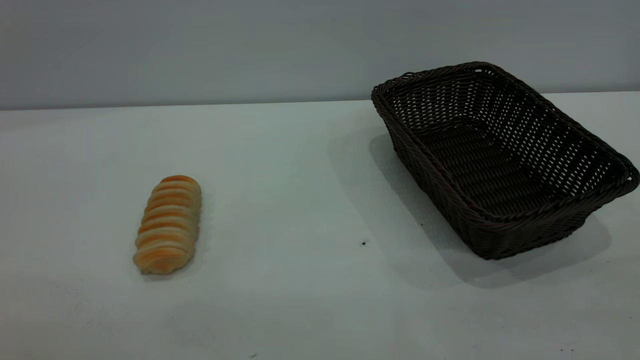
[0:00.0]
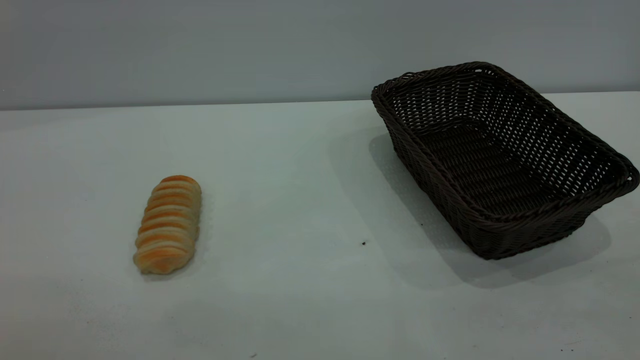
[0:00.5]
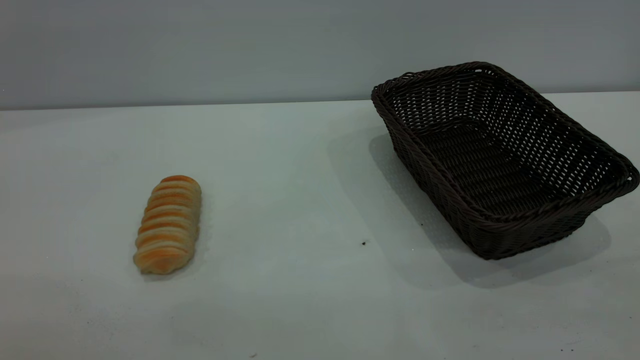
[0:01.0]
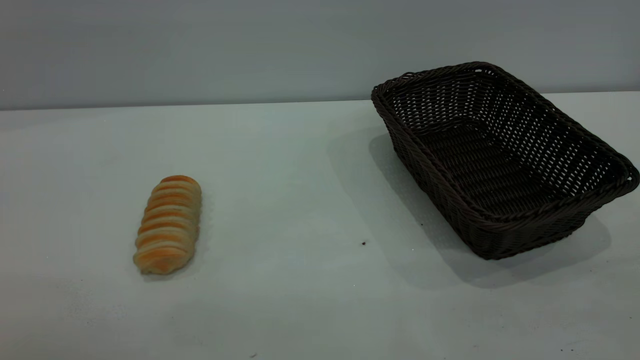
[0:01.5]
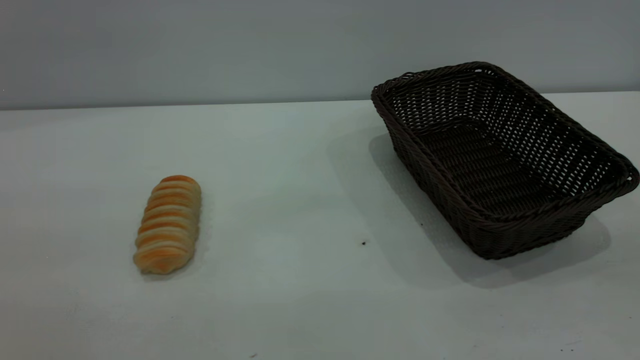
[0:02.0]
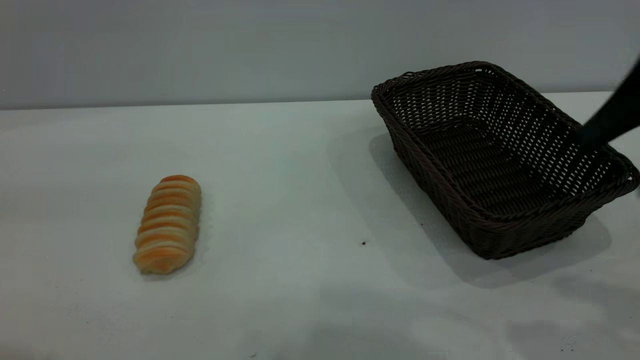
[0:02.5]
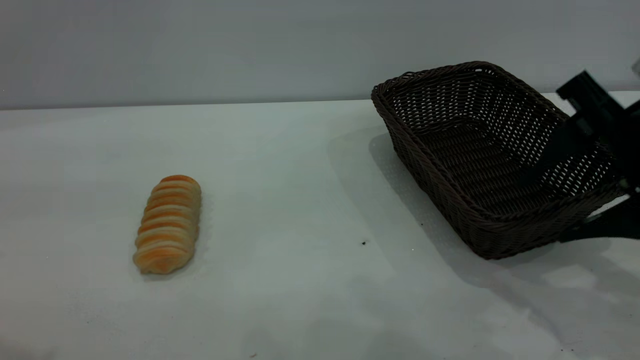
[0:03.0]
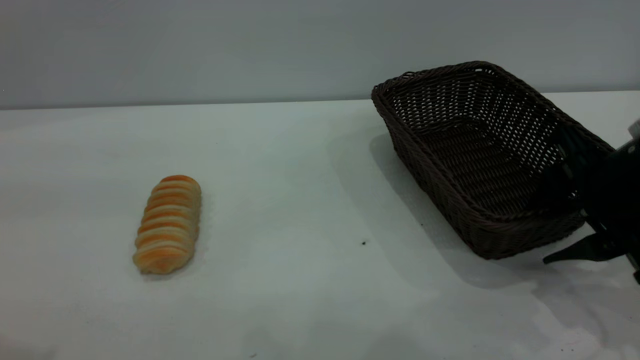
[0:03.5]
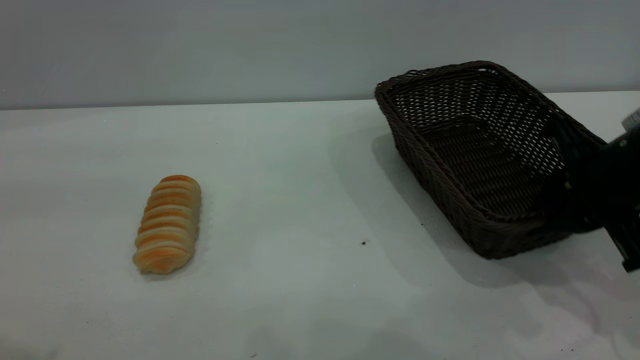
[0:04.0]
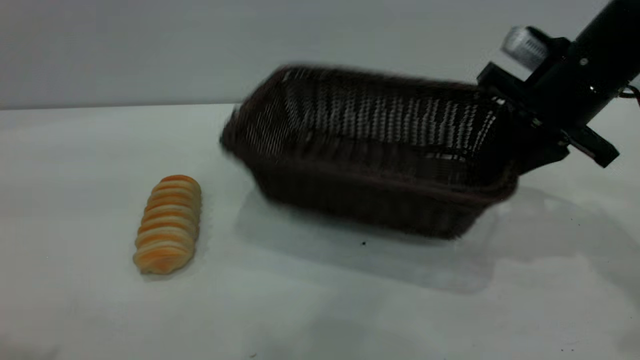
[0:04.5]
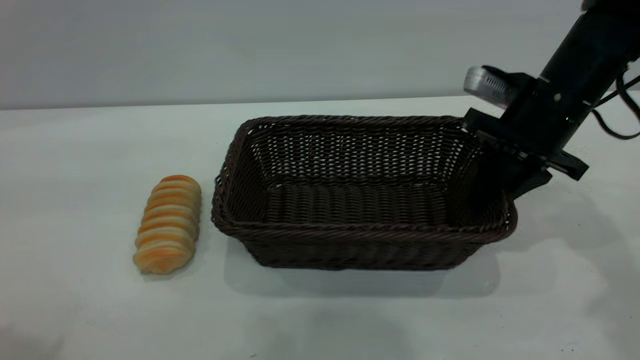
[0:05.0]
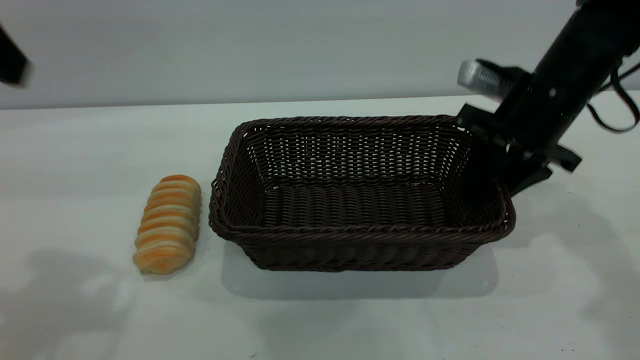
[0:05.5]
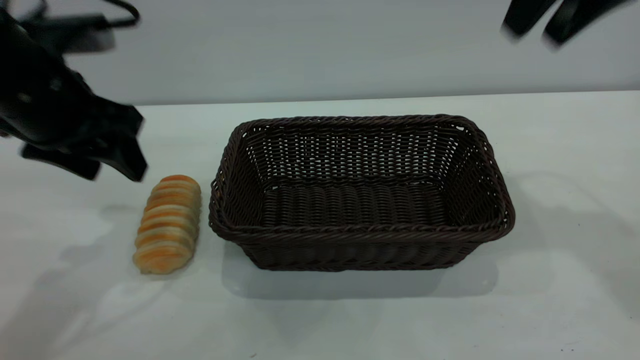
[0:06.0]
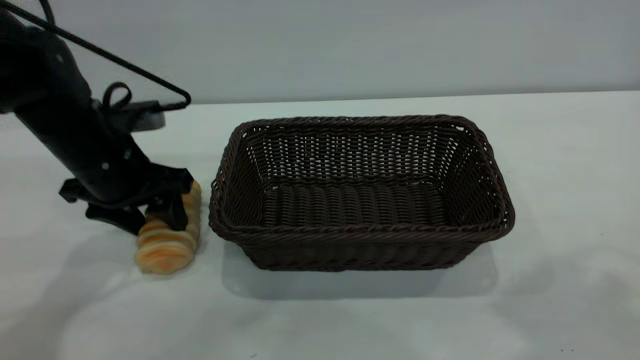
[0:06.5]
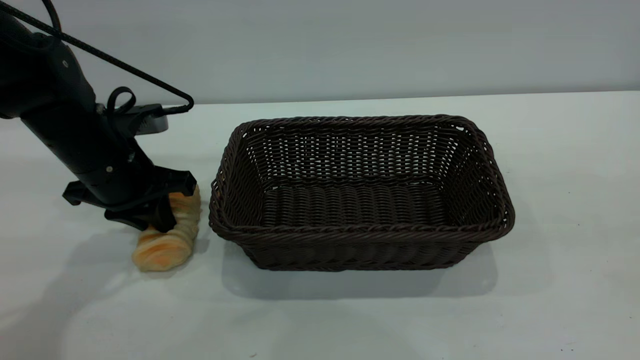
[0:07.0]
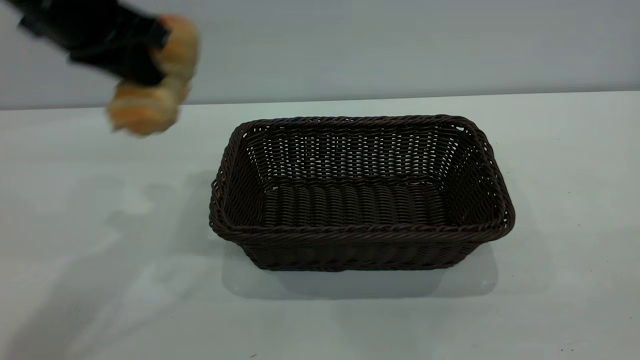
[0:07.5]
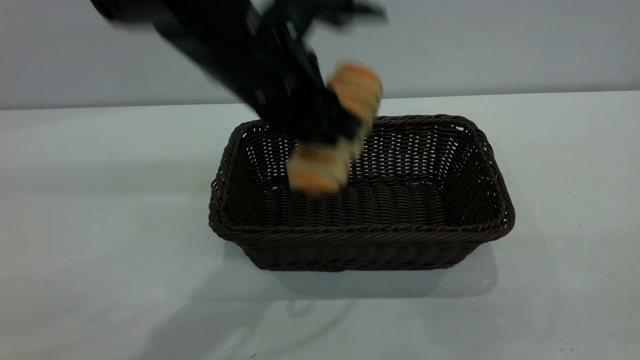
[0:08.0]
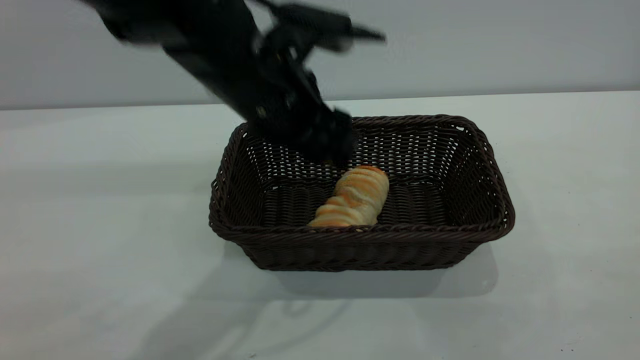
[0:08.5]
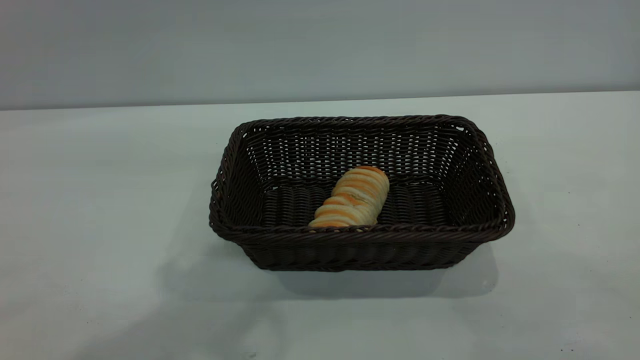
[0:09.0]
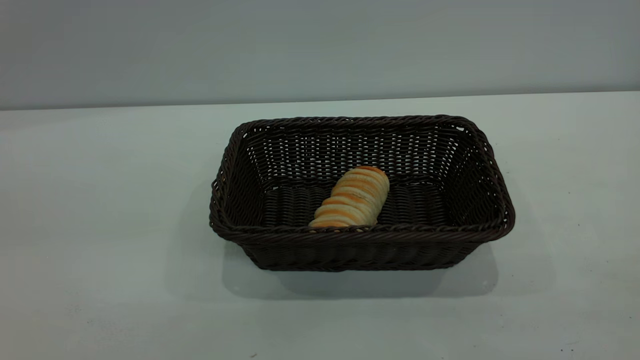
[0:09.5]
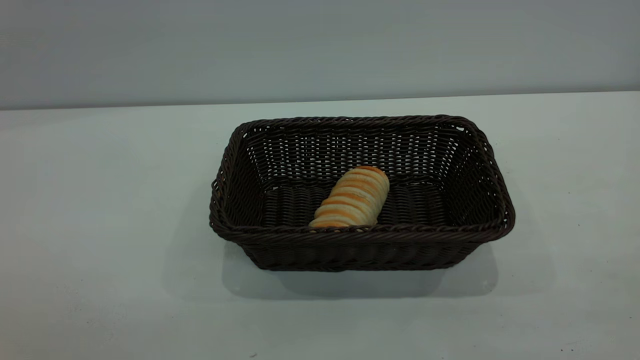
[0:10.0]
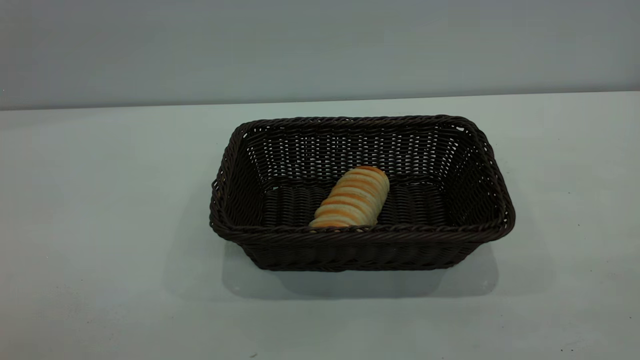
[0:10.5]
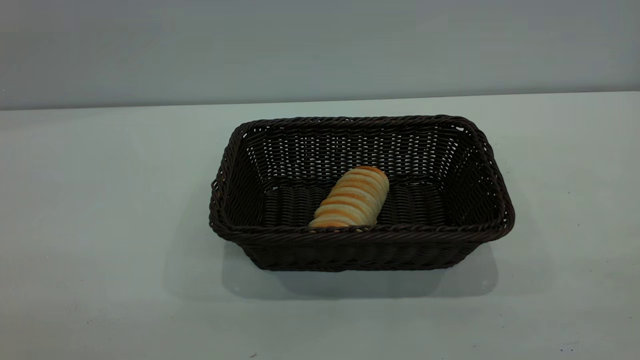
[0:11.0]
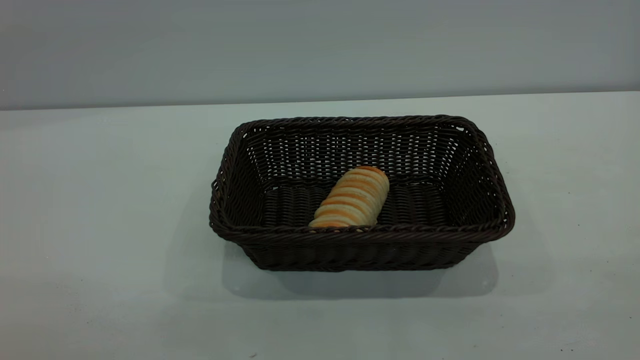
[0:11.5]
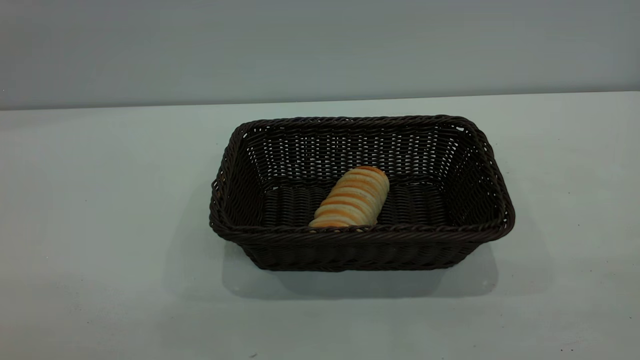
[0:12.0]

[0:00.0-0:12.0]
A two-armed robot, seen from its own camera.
Task of the whole recording: One hand grasps the black basket and places it in the middle of the table, while the other hand picks up the long bread and puts it into the black basket.
Step, 0:00.0 to 0:05.5: Move the basket to the center of view.
Step, 0:07.5 to 0:08.5: place the bread into the basket.
0:02.0 to 0:04.0: The right gripper goes roughly 30 cm downward and forward, and closes up.
0:04.0 to 0:06.0: The right gripper moves up and down over approximately 20 cm, changing direction 2 times, and opens up. The left gripper moves downward and forward, some 25 cm.
0:06.0 to 0:08.0: The left gripper shifts approximately 20 cm to the right, and closes its fingers; the right gripper is displaced backward by some 35 cm.
0:08.0 to 0:10.0: The left gripper shifts approximately 40 cm backward, to the left and upward, and opens its fingers.
